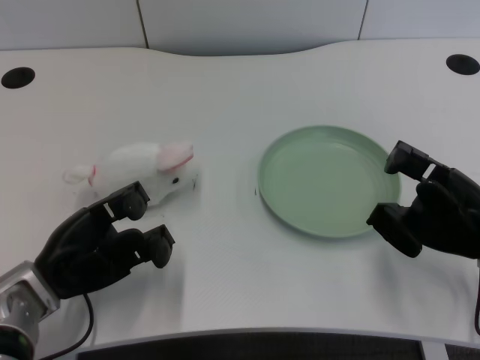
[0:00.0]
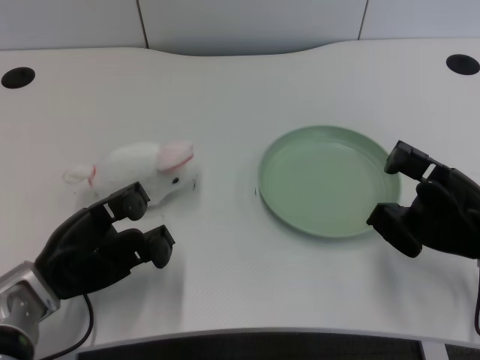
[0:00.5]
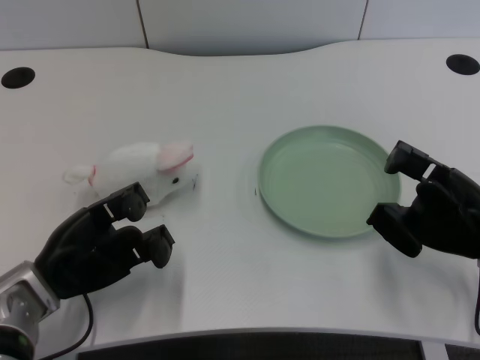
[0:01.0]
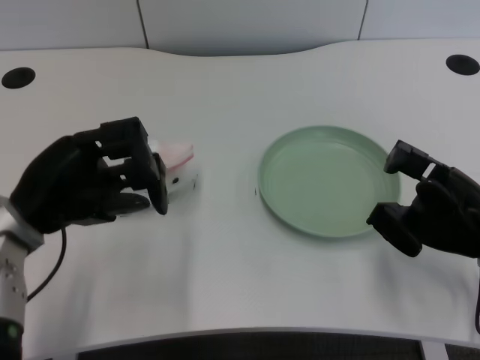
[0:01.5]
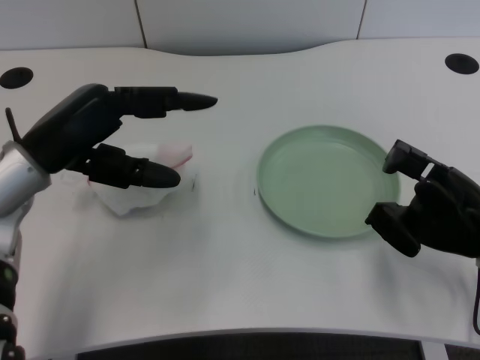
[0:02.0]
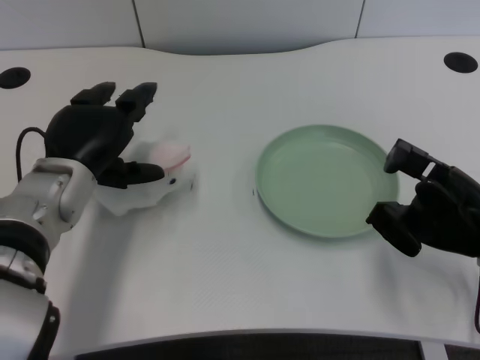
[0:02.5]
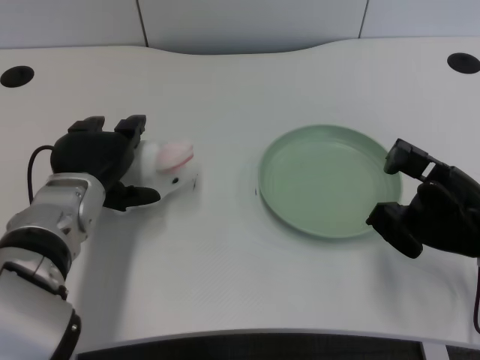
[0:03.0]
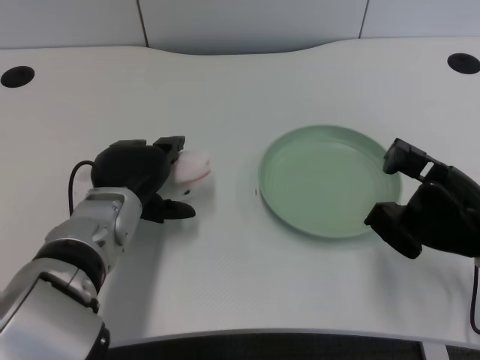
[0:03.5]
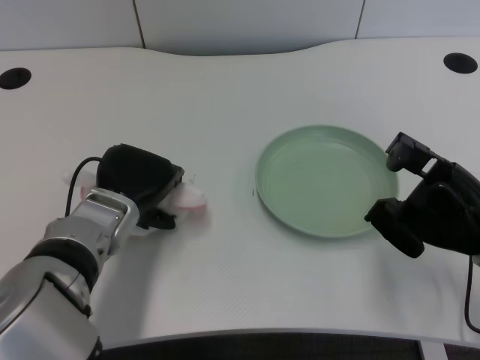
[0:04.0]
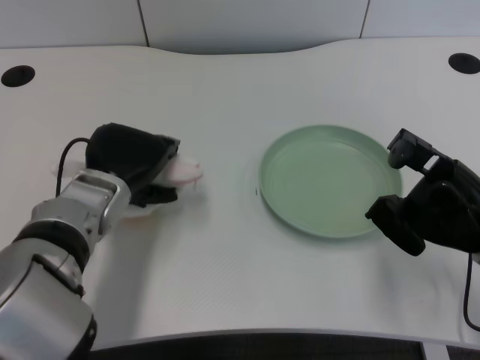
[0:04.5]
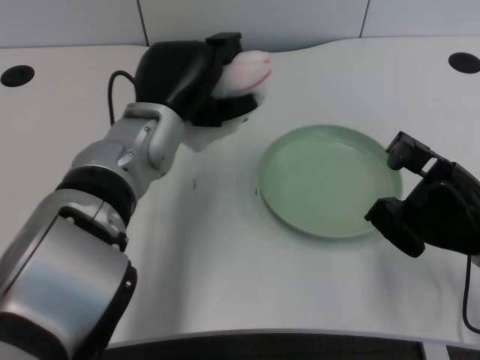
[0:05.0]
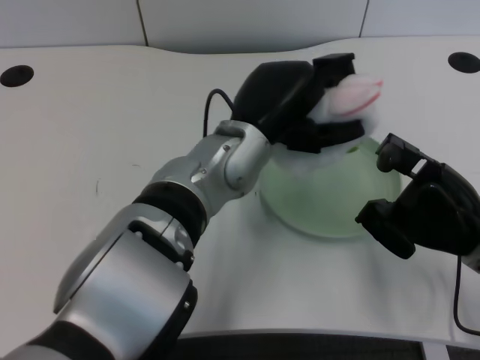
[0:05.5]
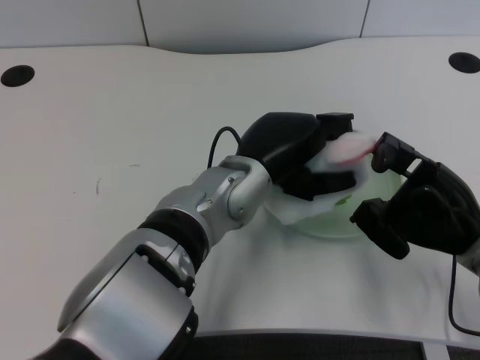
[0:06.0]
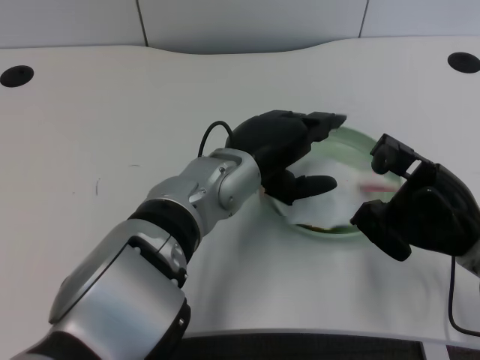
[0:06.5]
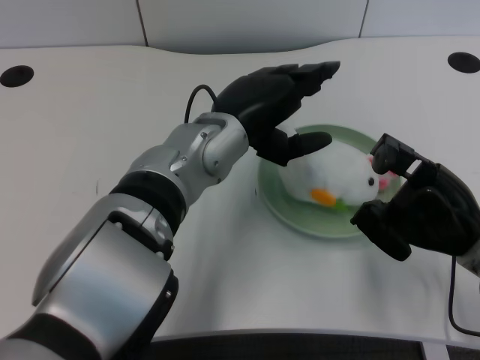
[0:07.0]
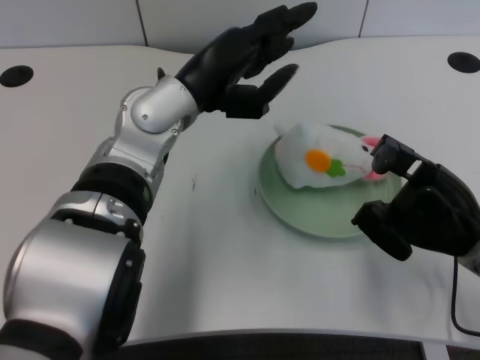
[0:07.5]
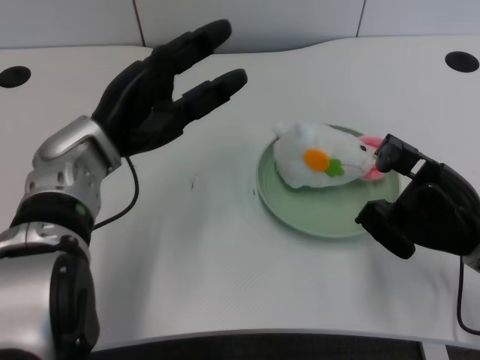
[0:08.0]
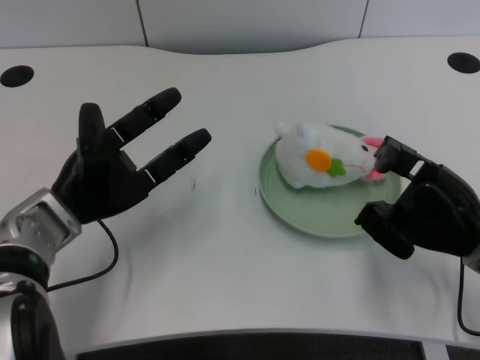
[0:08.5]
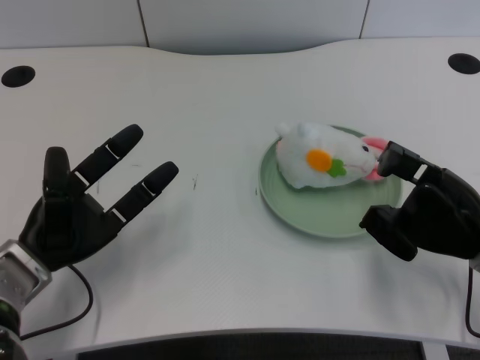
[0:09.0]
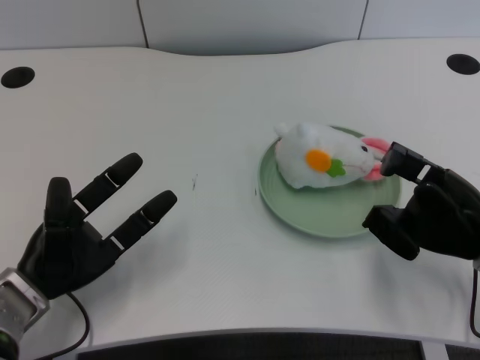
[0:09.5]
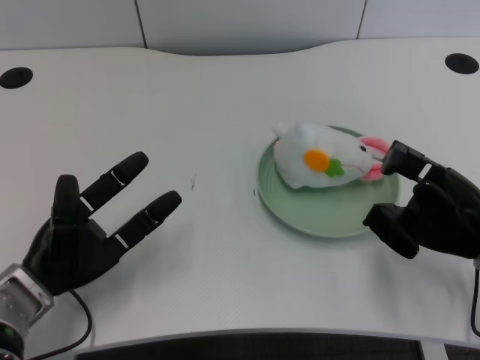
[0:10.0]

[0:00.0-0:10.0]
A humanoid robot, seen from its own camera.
Task of the whole recording: pick up the rabbit doll from the table and place it on the plate.
Step, 0:01.5 to 0:04.0: Grasp the rabbit doll with the left gripper.
Step, 0:04.5 to 0:06.0: Place the rabbit doll into the plate with the left gripper.
0:02.0 to 0:04.0: The left hand moves downward and to the right, some 10 cm.
0:04.0 to 0:06.0: The left hand shifts roughly 15 cm to the right and upward.
0:06.0 to 0:08.0: The left hand travels to the left by roughly 15 cm.
0:08.0 to 0:10.0: The left hand travels downward, backward and to the left by approximately 15 cm.

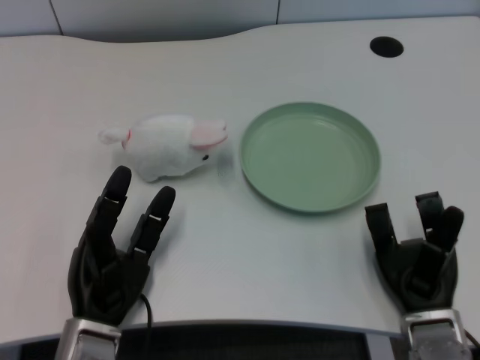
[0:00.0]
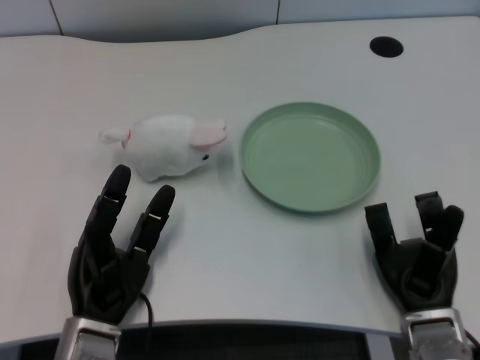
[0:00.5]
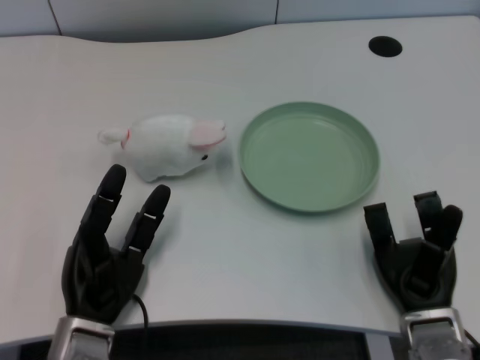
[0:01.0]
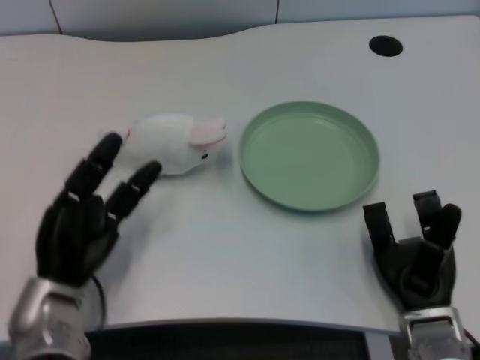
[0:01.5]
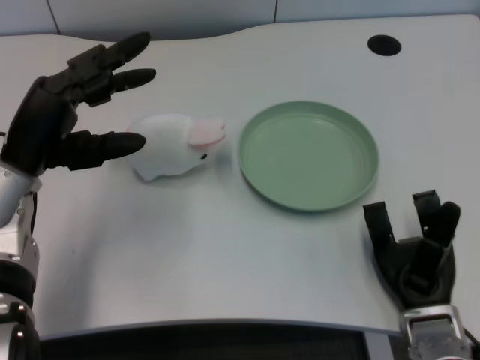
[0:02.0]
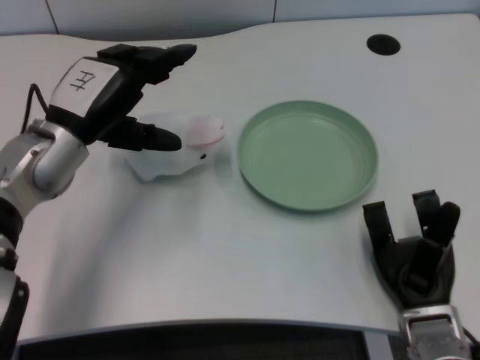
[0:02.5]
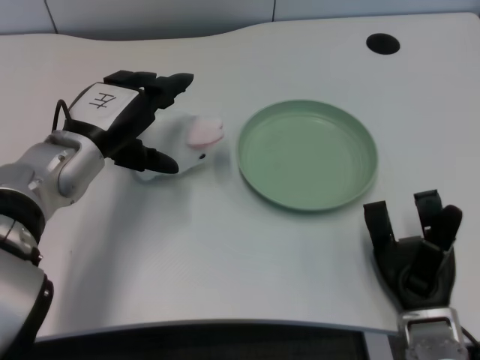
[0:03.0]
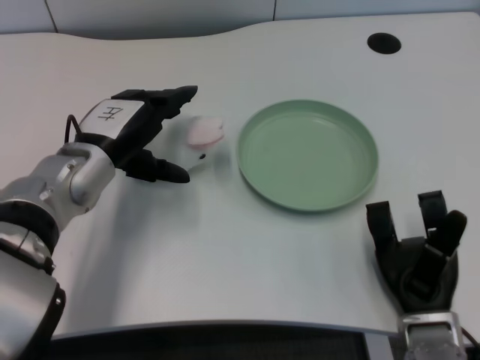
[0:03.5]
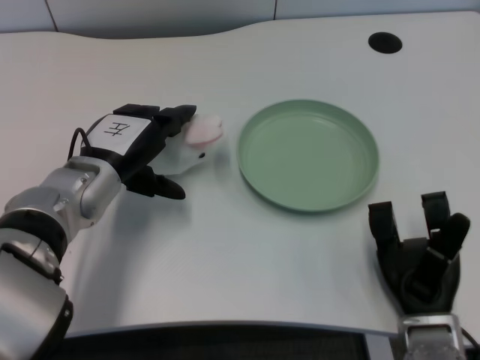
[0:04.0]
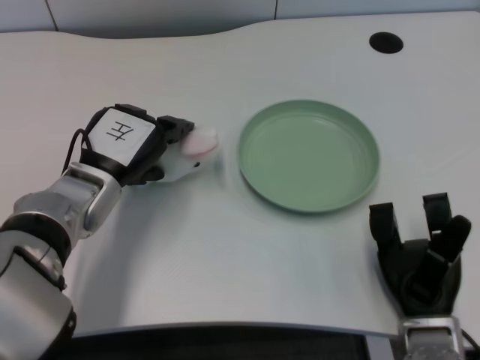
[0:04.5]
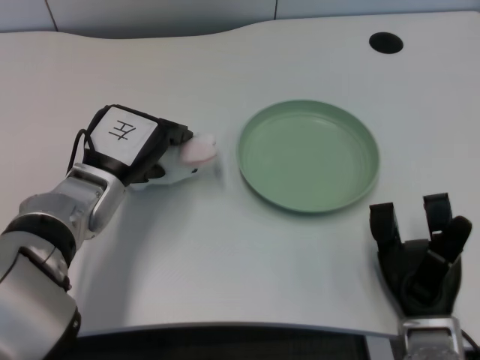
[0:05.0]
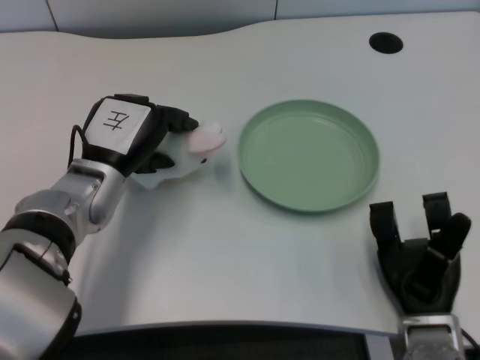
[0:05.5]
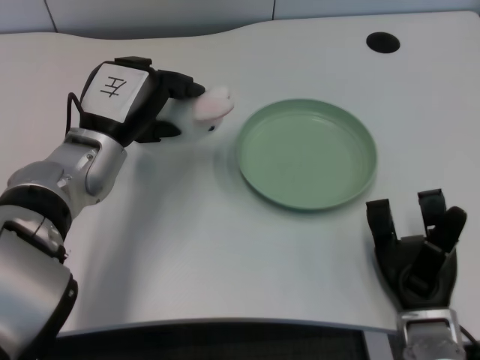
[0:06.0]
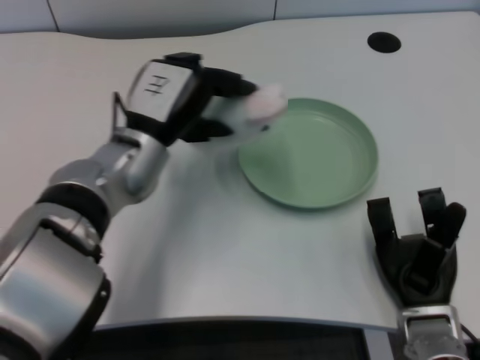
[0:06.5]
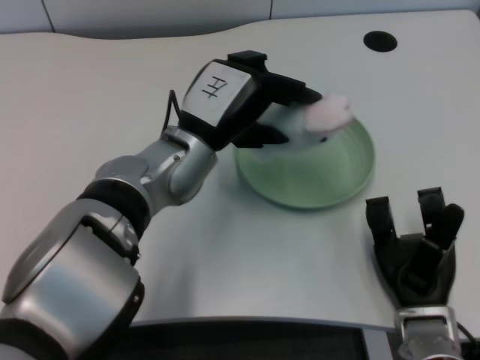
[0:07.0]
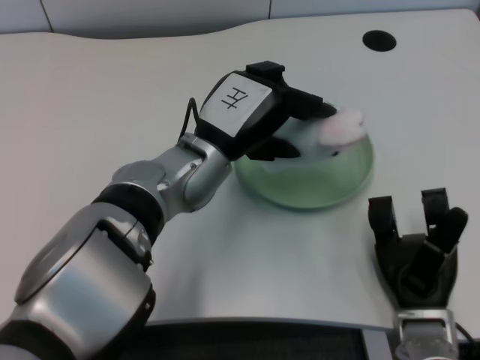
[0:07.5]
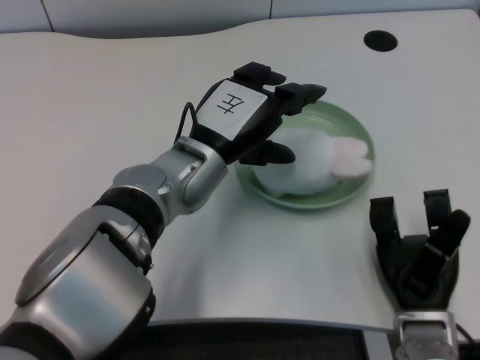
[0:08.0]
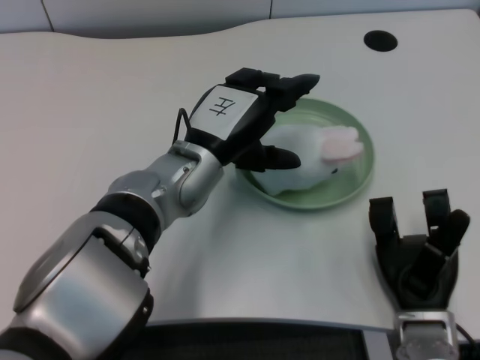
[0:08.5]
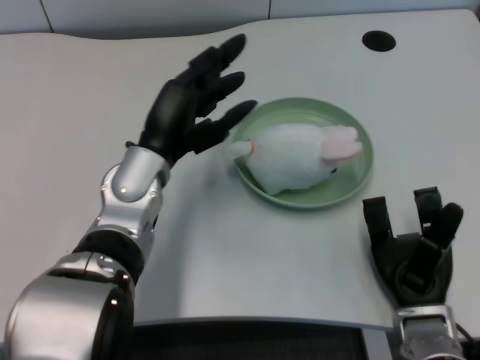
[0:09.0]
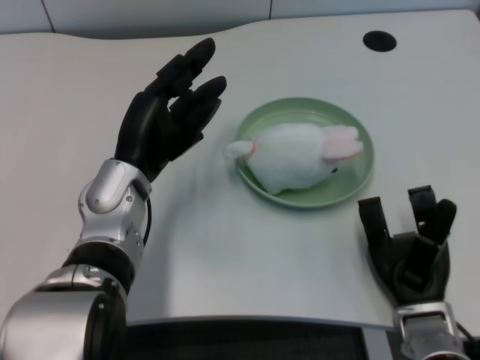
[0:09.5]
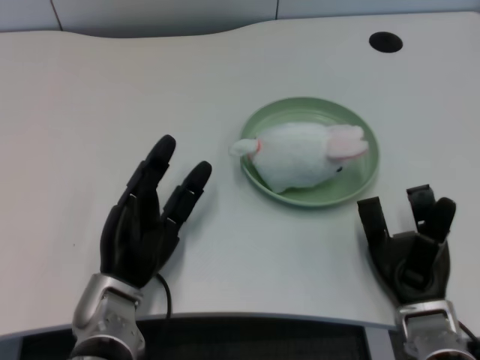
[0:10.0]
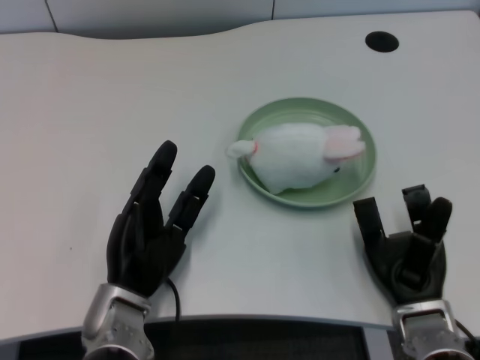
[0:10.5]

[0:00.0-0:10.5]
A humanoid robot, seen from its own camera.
Task of the whole recording: pick up the rabbit doll from the table and place it on the plate.
Step, 0:01.5 to 0:05.5: Grasp the rabbit doll with the left gripper.
Step, 0:06.0 to 0:07.5: Place the rabbit doll into the plate with the left gripper.
0:02.0 to 0:04.0: The left hand travels to the right by about 5 cm.
0:04.0 to 0:06.5: The left hand moves to the right, about 5 cm.
0:06.5 to 0:08.5: The left hand changes place by about 5 cm.
0:08.5 to 0:10.5: The left hand is displaced downward, backward and to the left by roughly 15 cm.

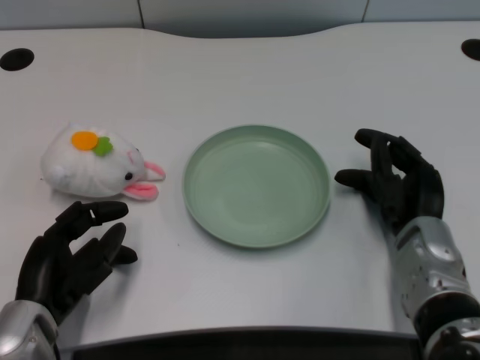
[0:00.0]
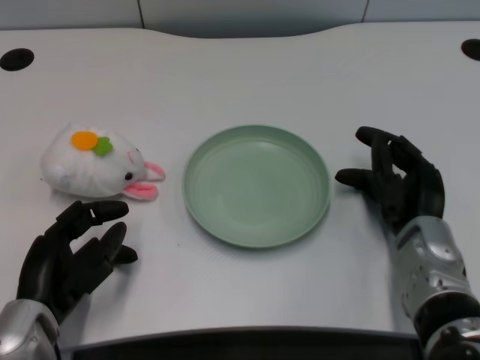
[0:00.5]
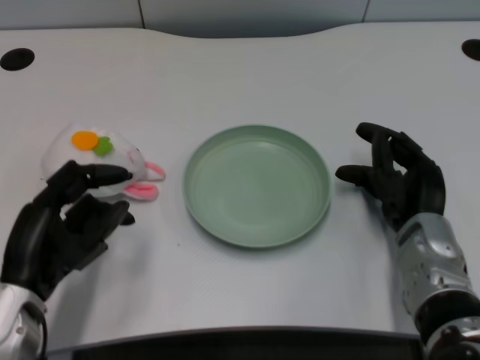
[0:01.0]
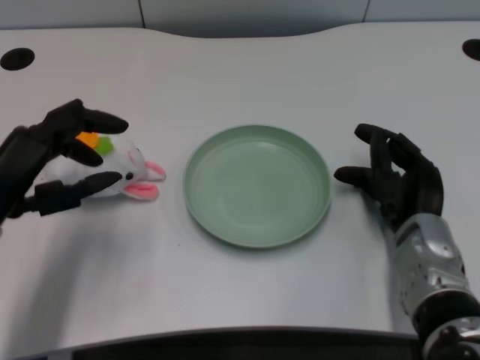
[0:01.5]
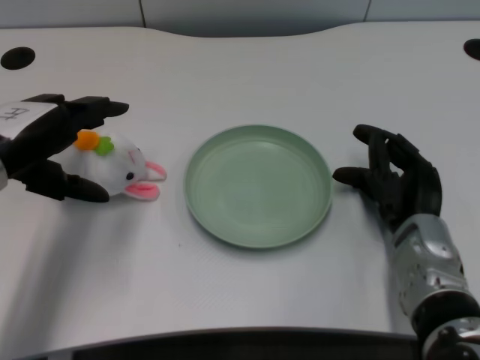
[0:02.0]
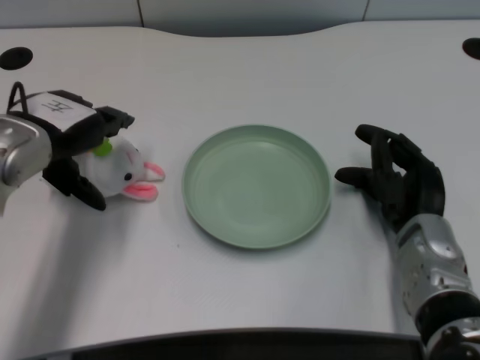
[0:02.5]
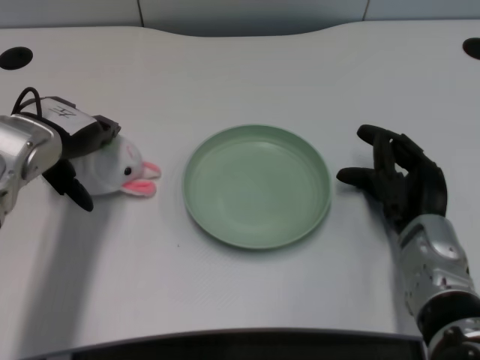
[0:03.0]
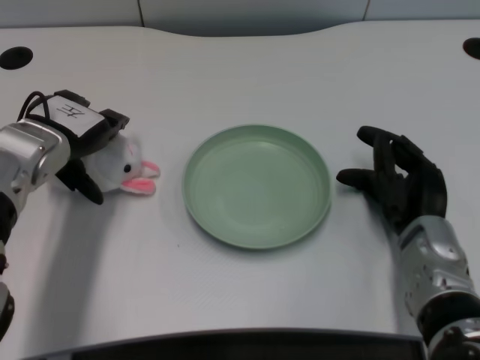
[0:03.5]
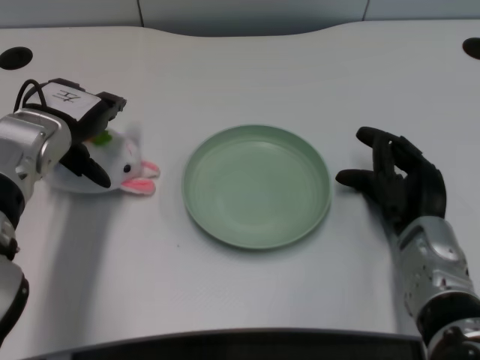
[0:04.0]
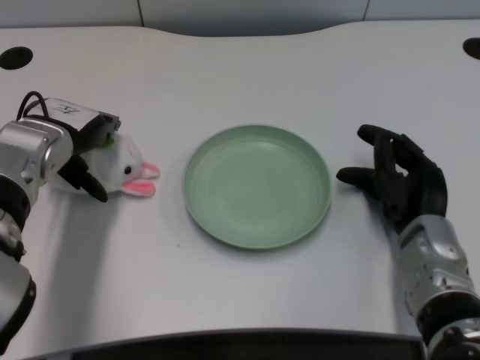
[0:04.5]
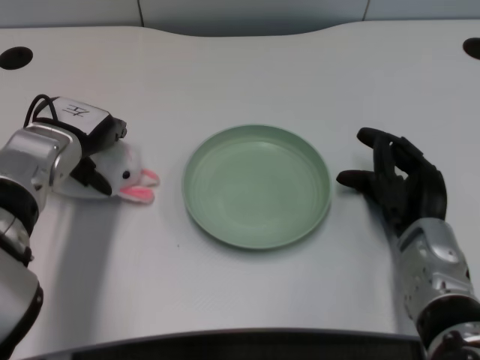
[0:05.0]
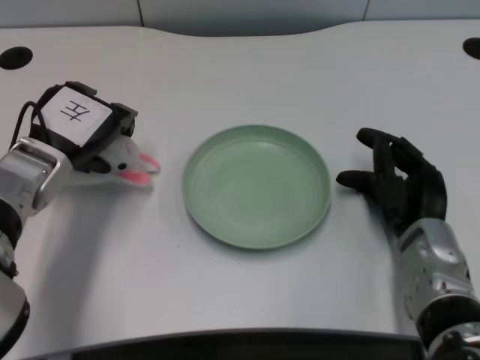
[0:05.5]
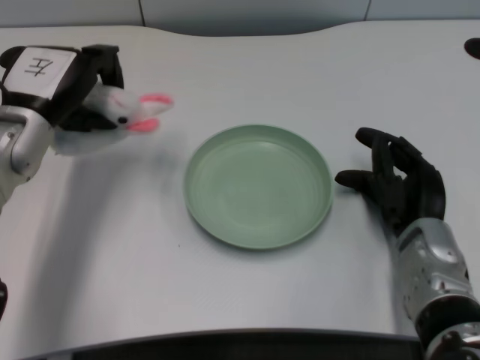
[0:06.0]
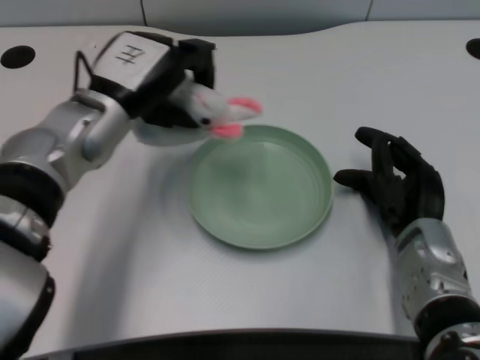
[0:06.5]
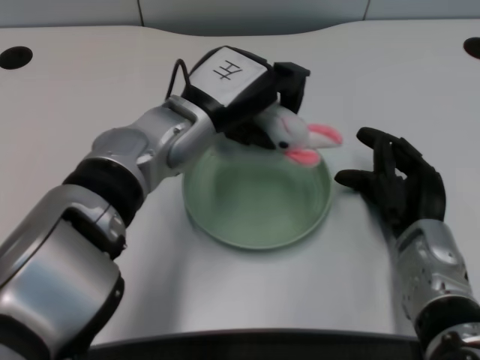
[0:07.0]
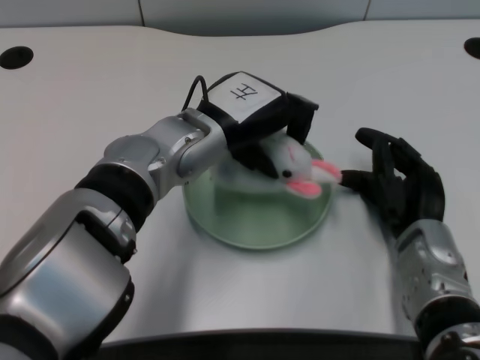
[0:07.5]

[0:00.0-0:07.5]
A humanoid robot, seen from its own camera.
Task of the whole recording: pick up the rabbit doll from the table and place it on the plate.
Step, 0:01.0 to 0:05.5: Grasp the rabbit doll with the left gripper.
0:02.0 to 0:04.0: The left hand moves forward, about 10 cm.
0:05.5 to 0:07.5: The left hand moves to the right, some 15 cm.
